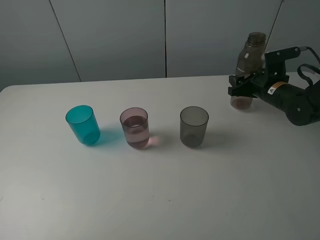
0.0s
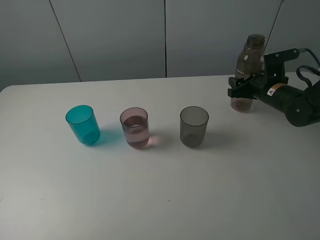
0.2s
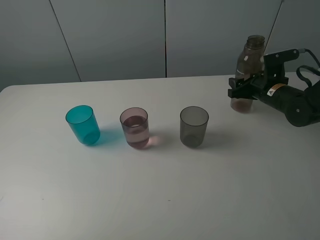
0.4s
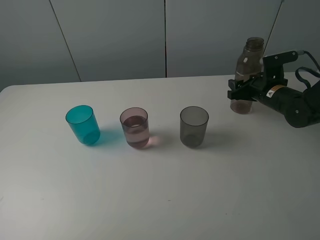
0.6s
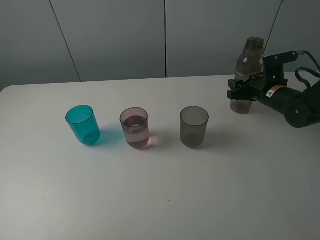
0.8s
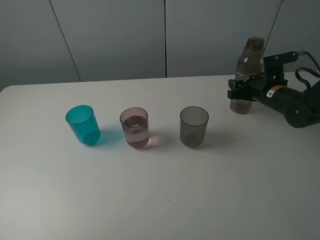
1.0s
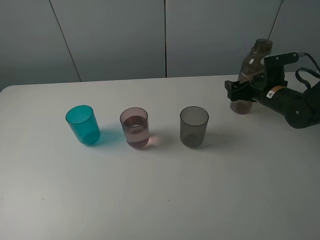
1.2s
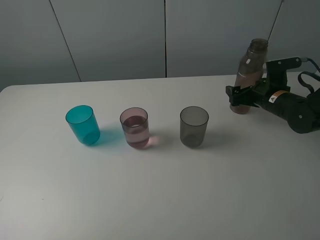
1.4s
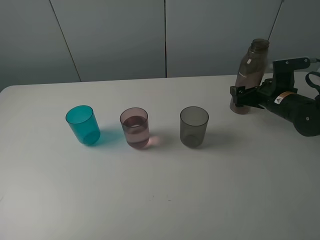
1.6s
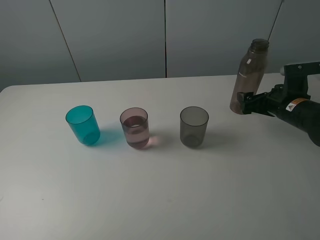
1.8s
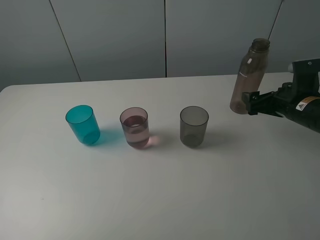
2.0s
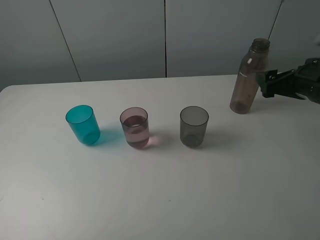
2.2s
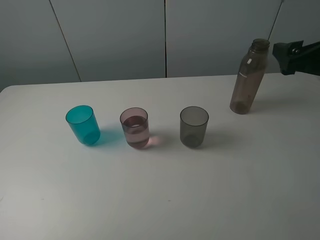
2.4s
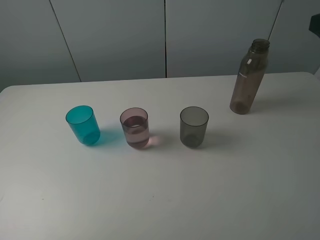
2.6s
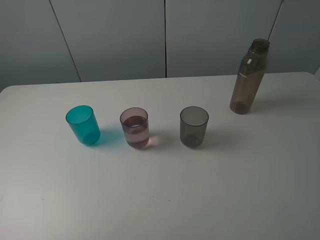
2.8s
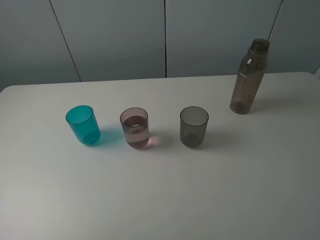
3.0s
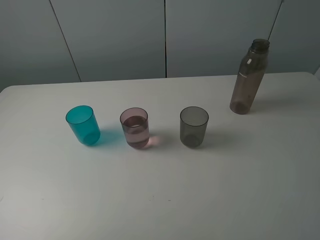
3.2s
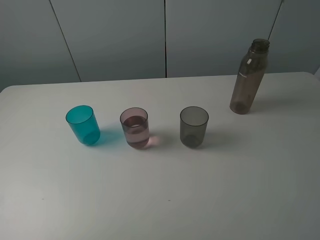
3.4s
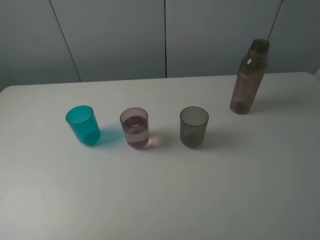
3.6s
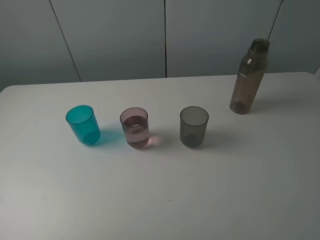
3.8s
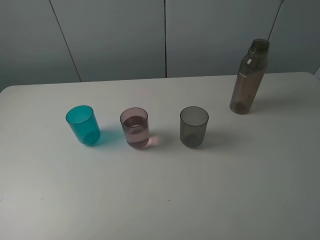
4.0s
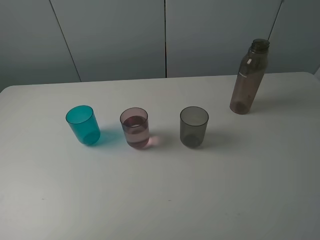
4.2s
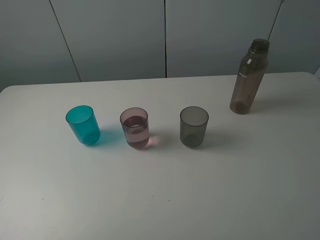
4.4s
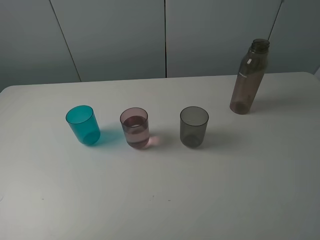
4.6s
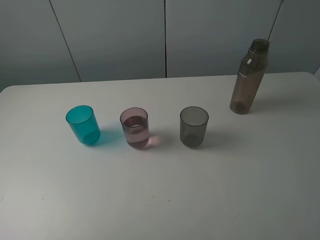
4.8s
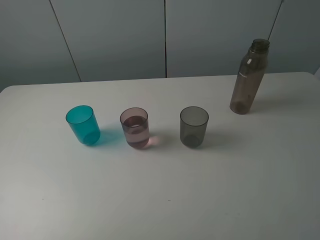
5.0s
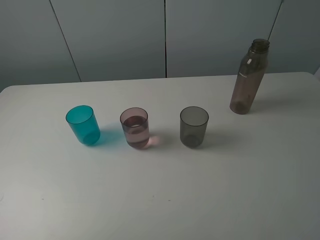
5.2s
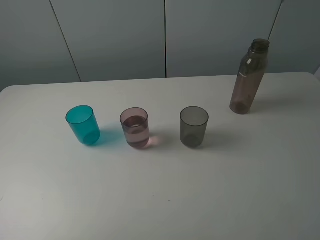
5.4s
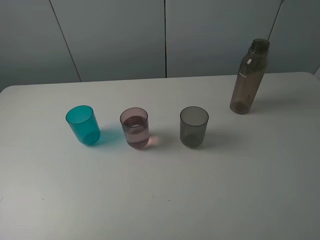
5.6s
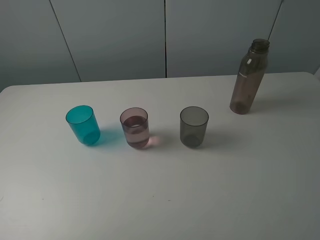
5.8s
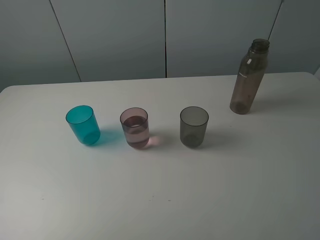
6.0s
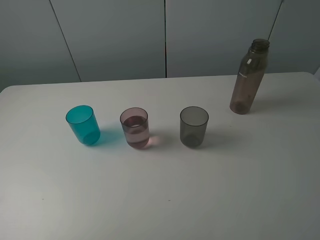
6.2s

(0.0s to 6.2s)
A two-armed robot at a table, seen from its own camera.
Task of the whole recording: pick up the bottle filled with water and pour water into the middle cup of the three cups.
0.0s - 1.6s: The right gripper opens up.
1.6s - 3.2s: The right gripper is displaced backward and upward by about 35 cm.
4.6s - 6.2s: Both grippers stay put.
